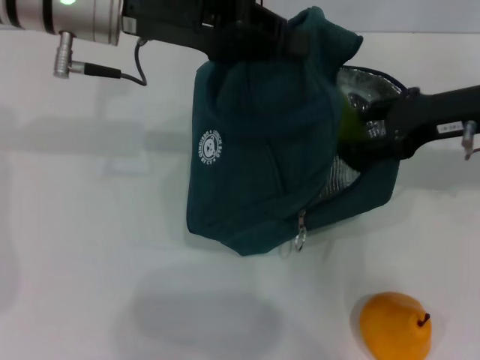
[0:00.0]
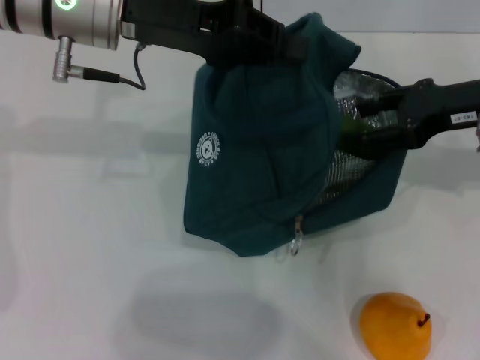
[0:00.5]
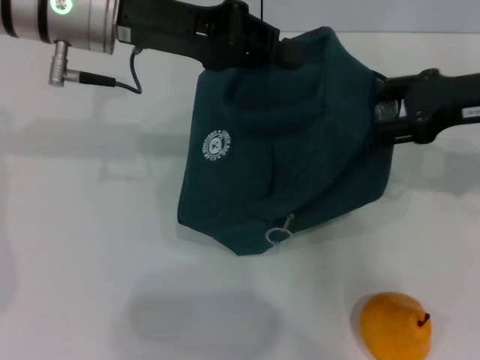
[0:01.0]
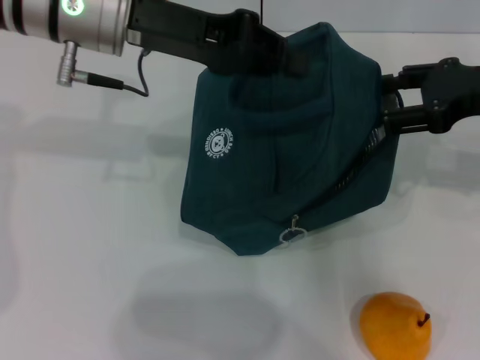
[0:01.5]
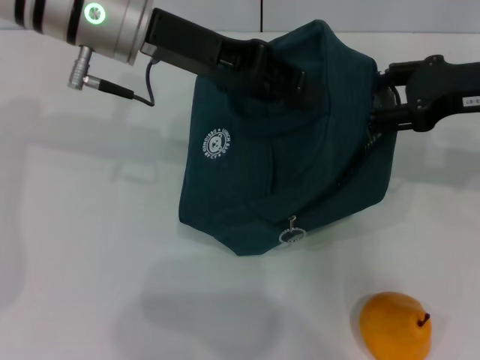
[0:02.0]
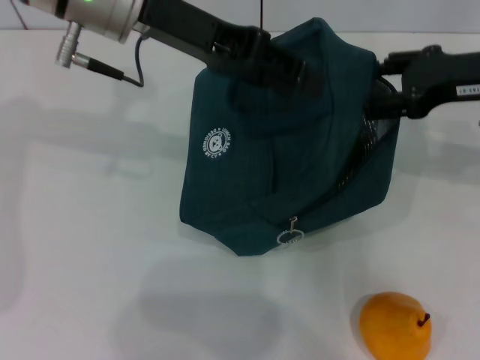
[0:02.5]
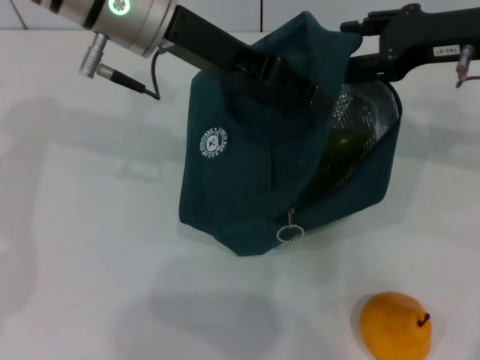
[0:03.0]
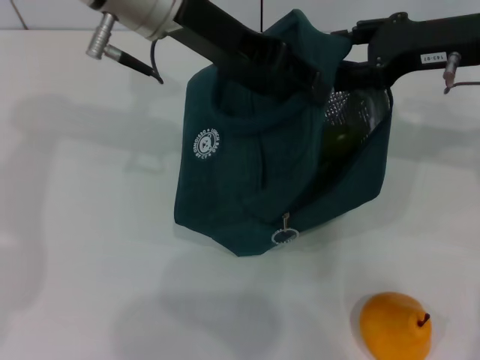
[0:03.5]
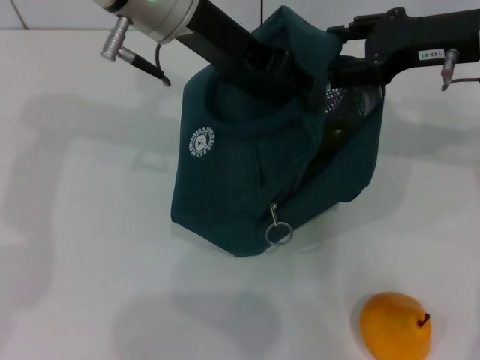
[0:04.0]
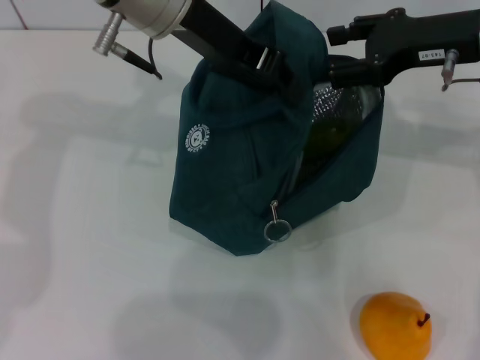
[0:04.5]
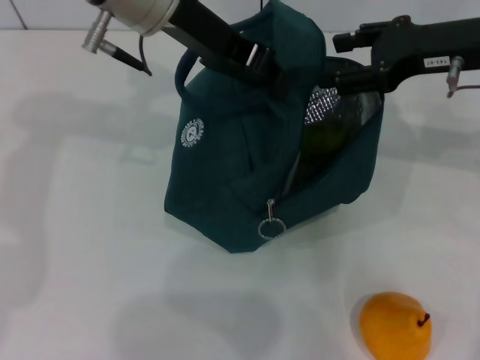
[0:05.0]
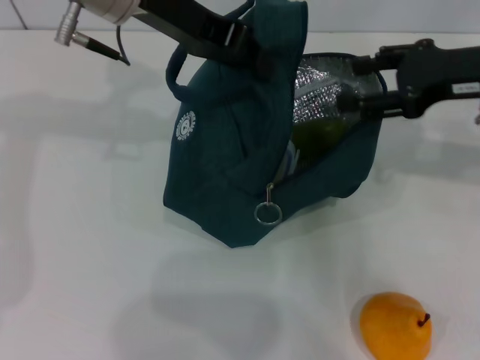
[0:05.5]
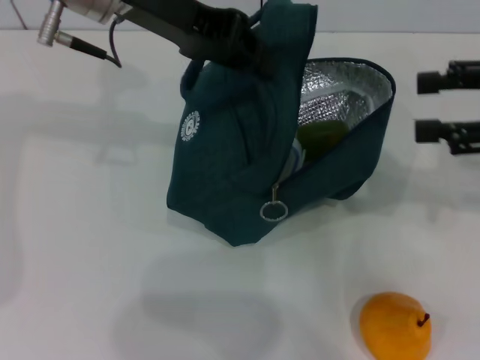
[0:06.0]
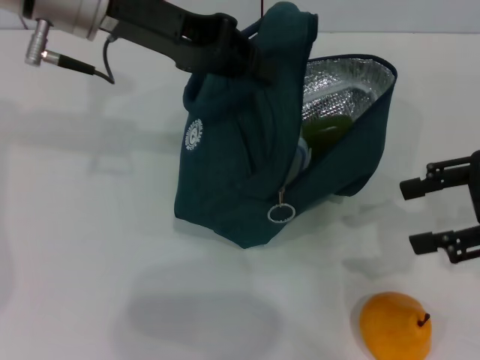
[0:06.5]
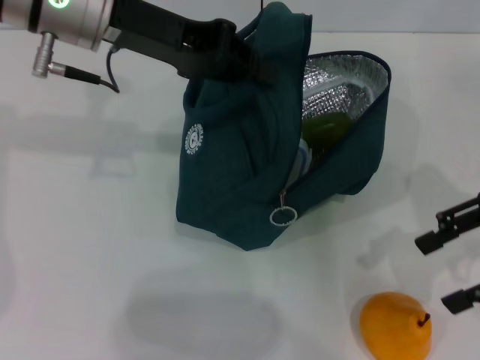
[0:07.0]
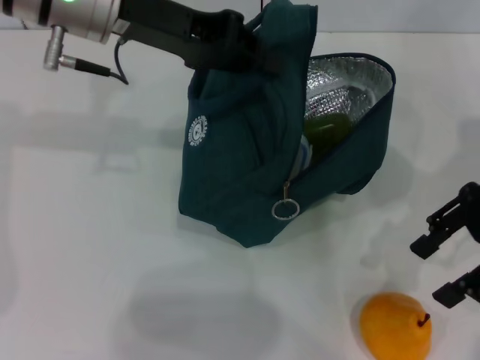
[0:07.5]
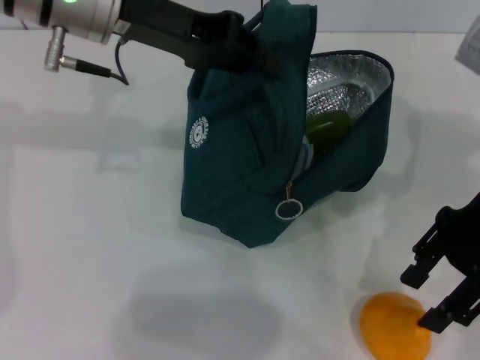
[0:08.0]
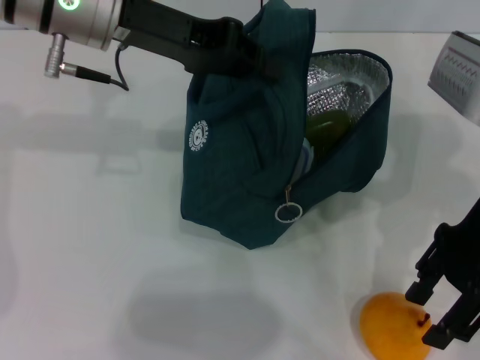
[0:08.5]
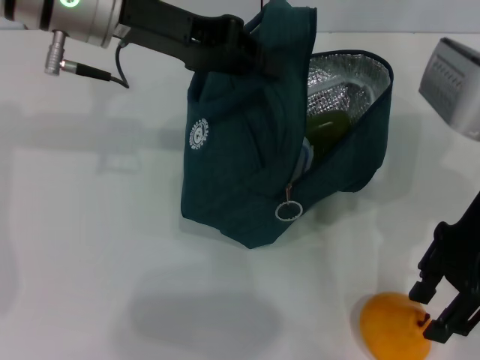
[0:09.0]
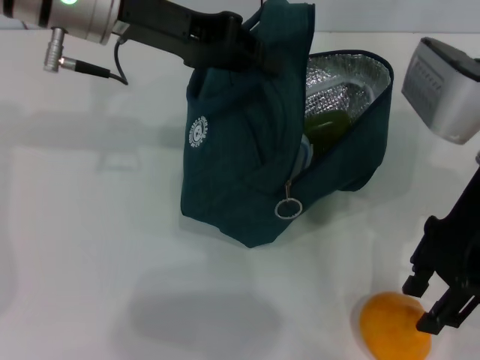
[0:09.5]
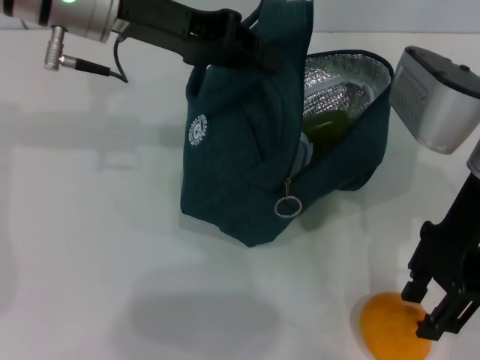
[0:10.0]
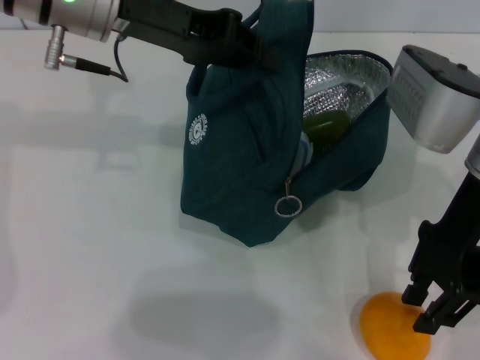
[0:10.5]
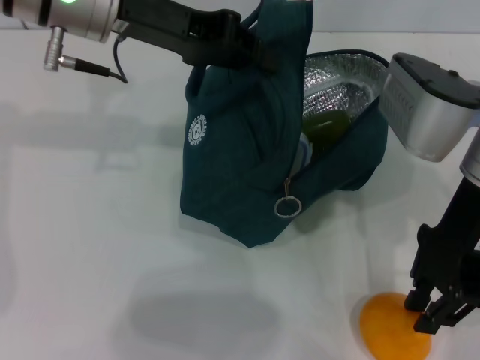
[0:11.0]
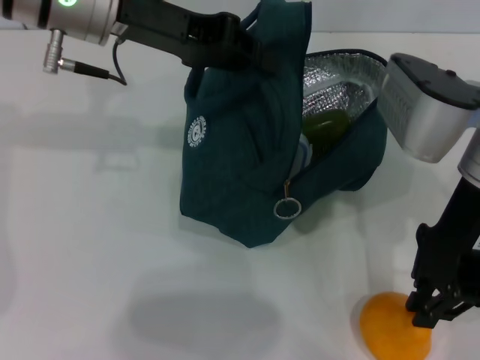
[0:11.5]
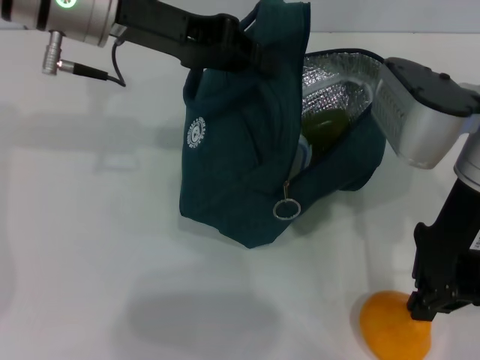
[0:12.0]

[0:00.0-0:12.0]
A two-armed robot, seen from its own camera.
0:00.0 to 0:02.0: The grippers stay close to where they were, moving slightly.
0:02.0 to 0:04.0: The left gripper opens up; the right gripper changes place by some 5 cm.
0:04.0 to 0:06.0: The right gripper heads to the right and backward, covering some 10 cm. The left gripper is displaced to the left by some 5 cm, and closes.
0:06.0 to 0:08.0: The right gripper travels to the left by some 10 cm.
0:08.0 to 0:10.0: There are only small adjustments of the grippers.
0:10.0 to 0:12.0: The right gripper closes.

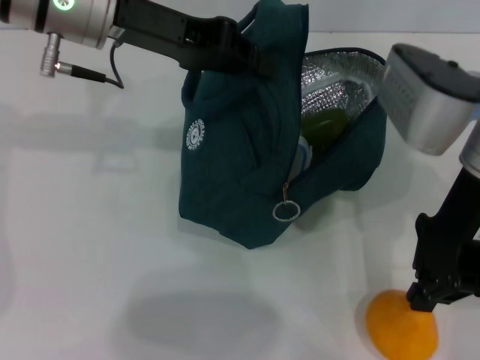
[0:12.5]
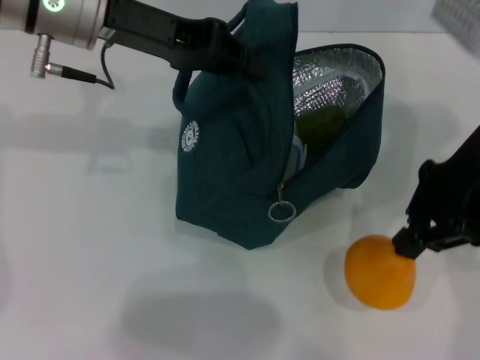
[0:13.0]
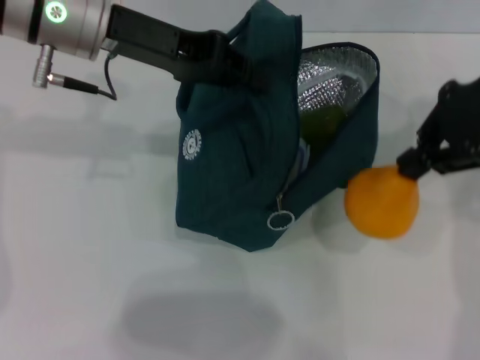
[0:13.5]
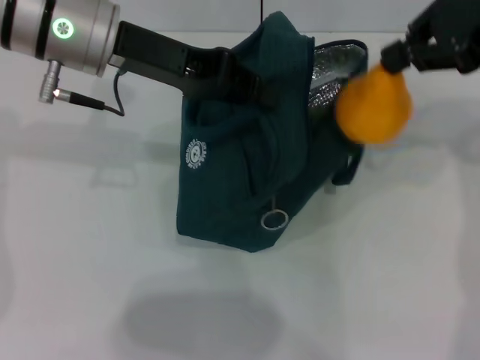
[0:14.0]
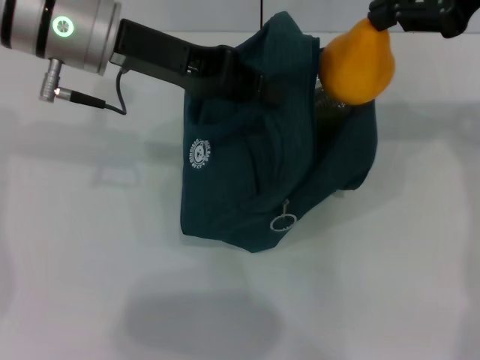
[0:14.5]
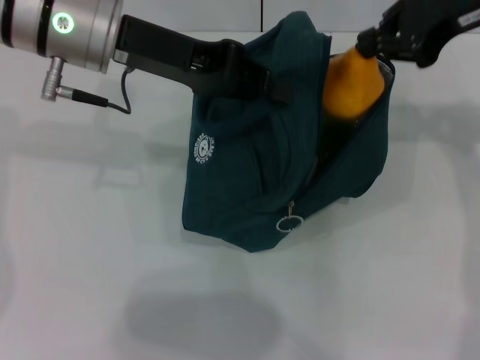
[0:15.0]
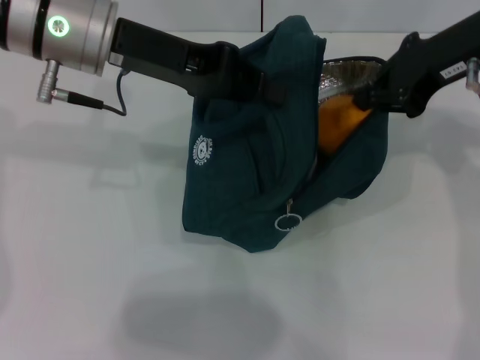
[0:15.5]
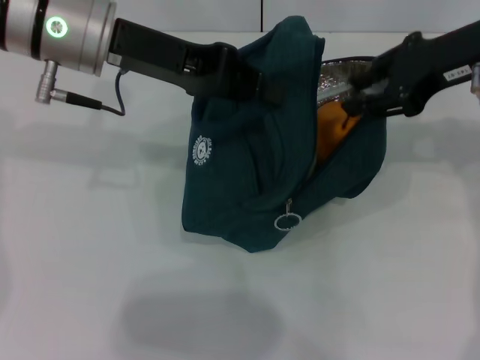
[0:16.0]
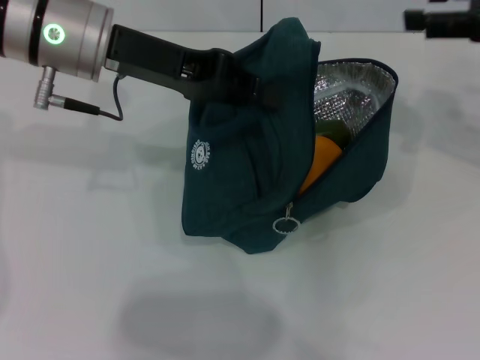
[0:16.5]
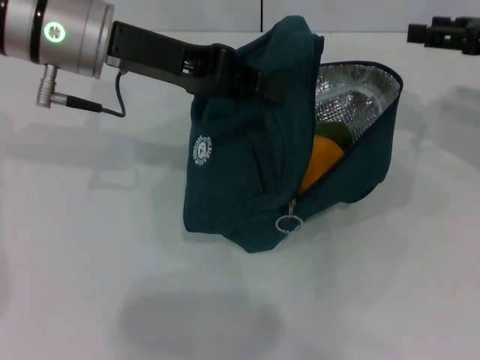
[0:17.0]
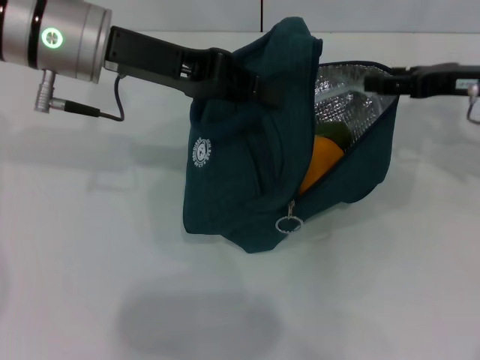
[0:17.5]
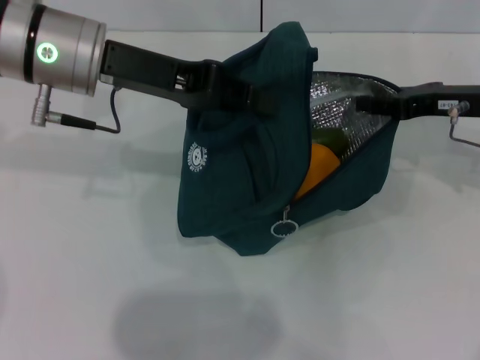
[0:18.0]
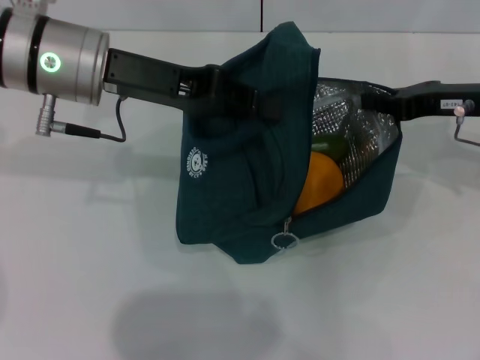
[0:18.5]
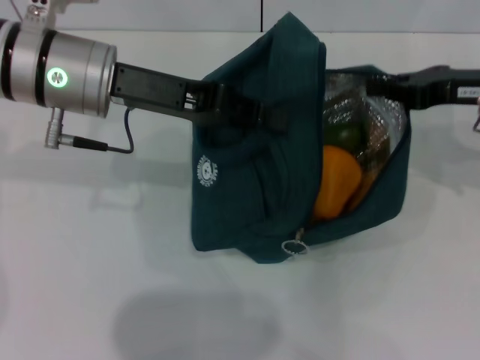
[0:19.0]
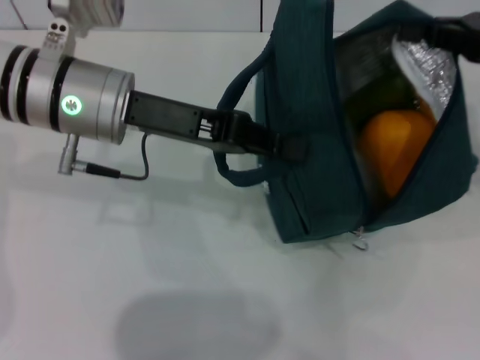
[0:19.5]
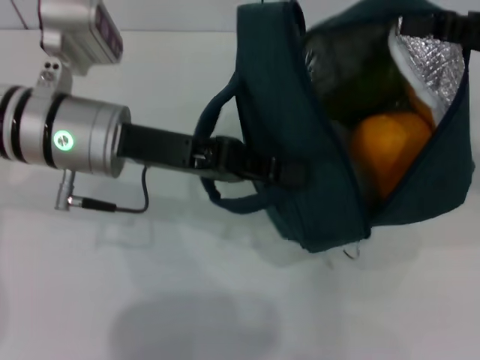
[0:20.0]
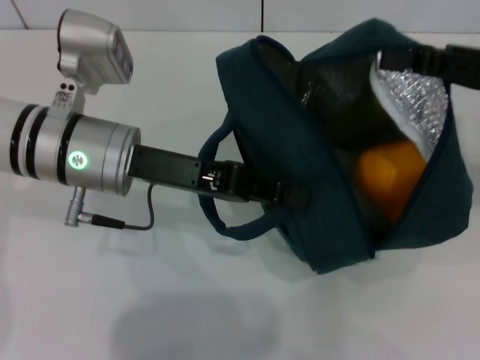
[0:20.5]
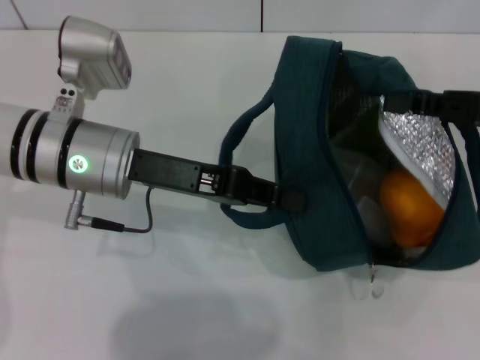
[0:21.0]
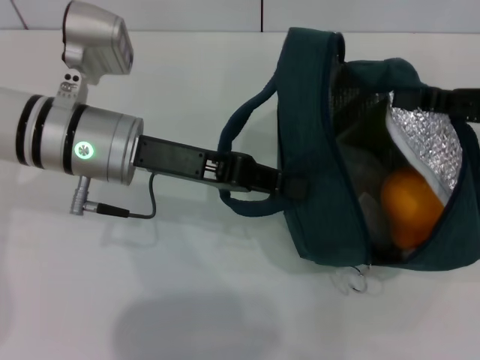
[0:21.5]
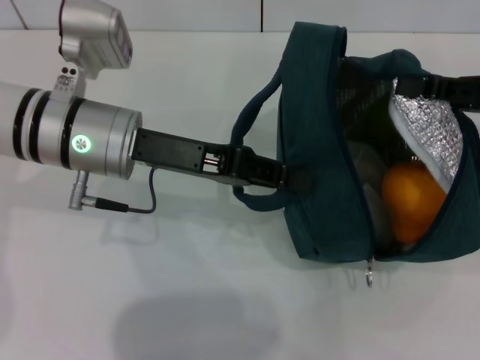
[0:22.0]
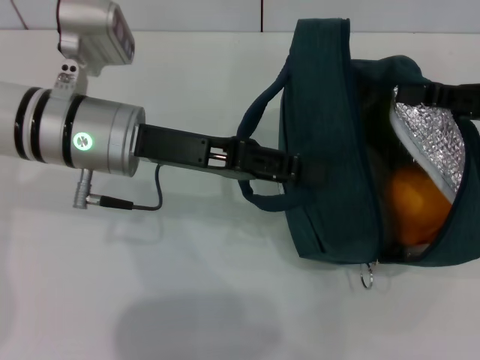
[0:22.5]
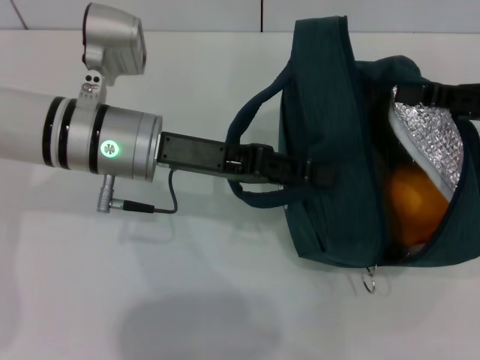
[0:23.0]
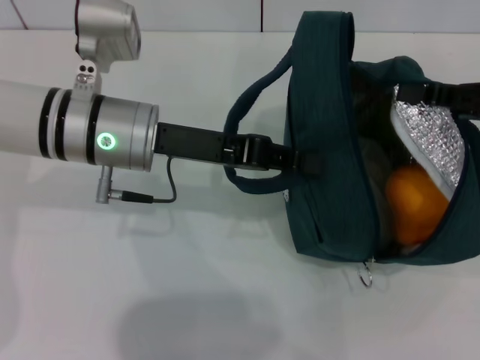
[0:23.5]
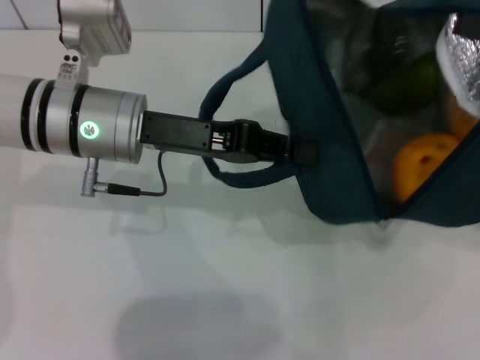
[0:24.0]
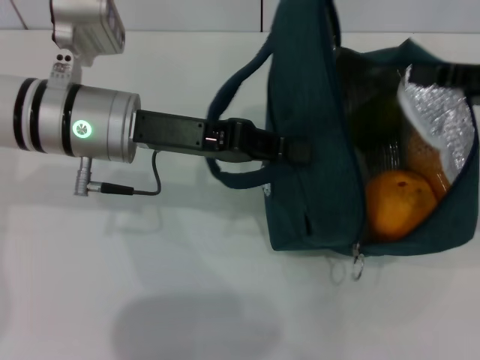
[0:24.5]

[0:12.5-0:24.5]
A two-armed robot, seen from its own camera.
Step, 0:12.5 to 0:16.0: Secure the lunch bag with your left hand.
0:12.5 to 0:14.5: The right gripper heads upward, to the right and forward, covering about 15 cm.
0:14.5 to 0:16.5: The right gripper heads downward and to the right, covering about 10 cm, and opens its fingers.
0:16.5 to 0:18.5: The right gripper travels downward by roughly 10 cm, and closes up.
0:18.5 to 0:20.5: The right gripper goes about 10 cm upward and backward. The left gripper shifts about 5 cm downward.
0:20.5 to 0:22.5: The left gripper opens.
0:22.5 to 0:24.5: The left gripper closes its fingers.

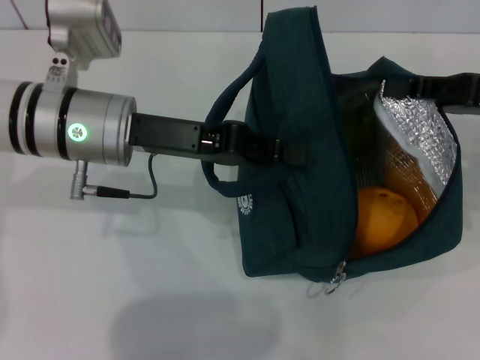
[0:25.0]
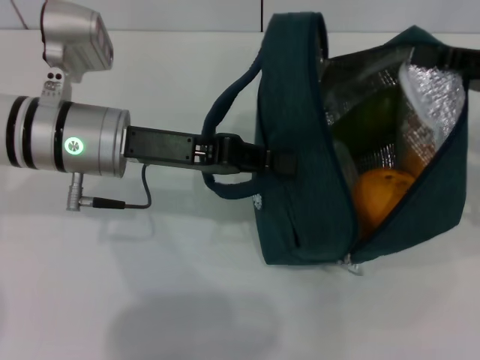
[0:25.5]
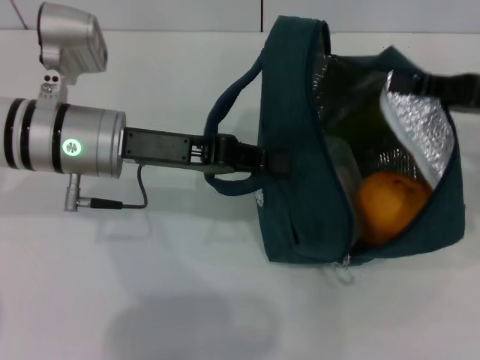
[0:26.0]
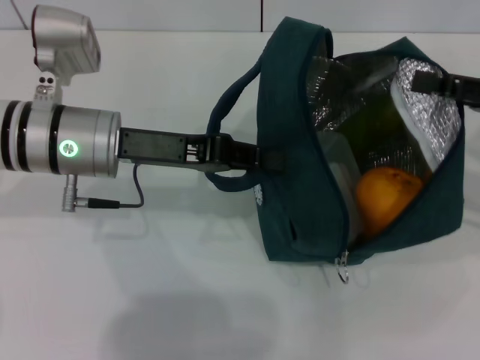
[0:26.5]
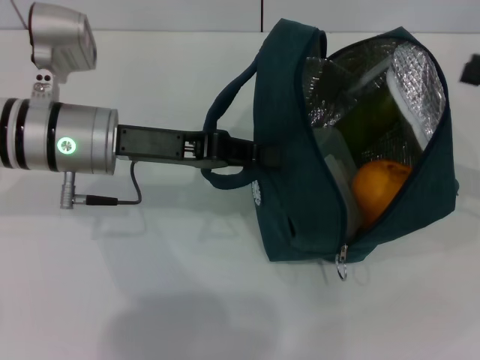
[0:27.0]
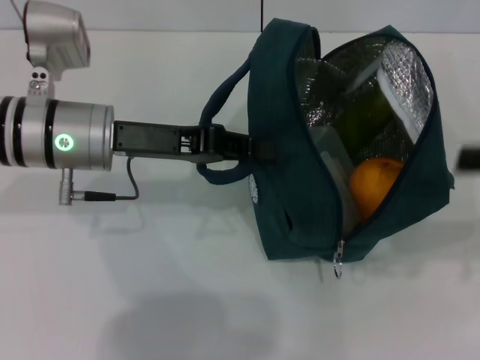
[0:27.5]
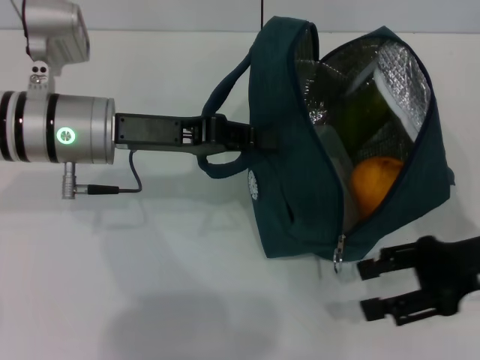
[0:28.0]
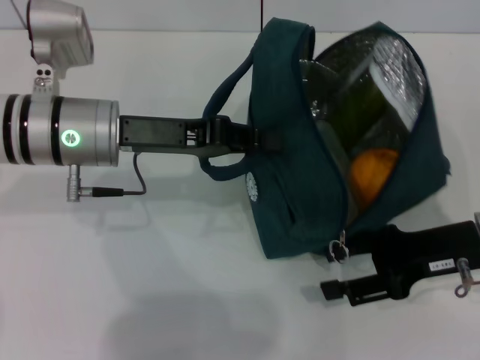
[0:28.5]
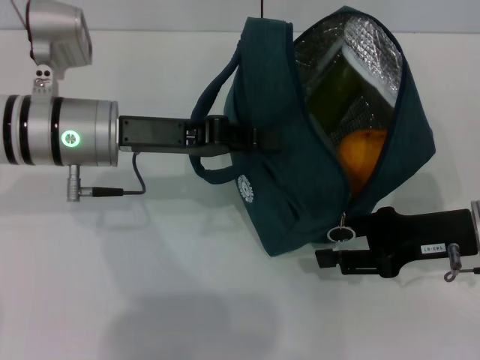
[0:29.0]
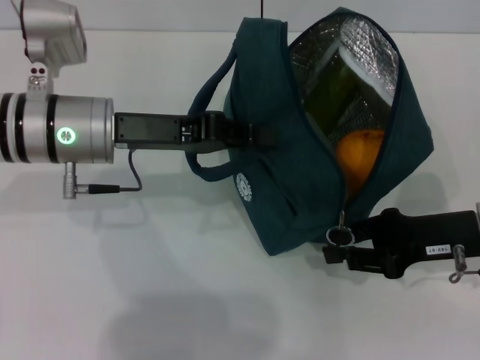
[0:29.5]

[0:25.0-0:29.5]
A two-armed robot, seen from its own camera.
0:25.0 to 0:27.0: The right gripper heads to the right, covering about 5 cm, and opens.
0:27.0 to 0:29.5: The right gripper travels to the left and downward by approximately 15 cm.
